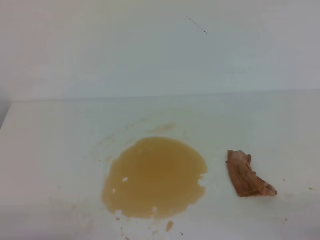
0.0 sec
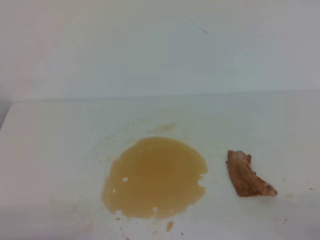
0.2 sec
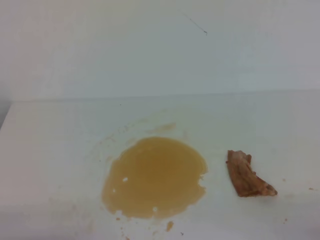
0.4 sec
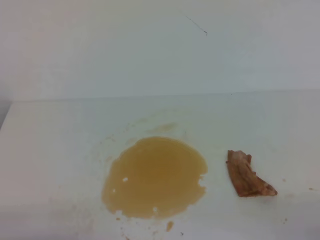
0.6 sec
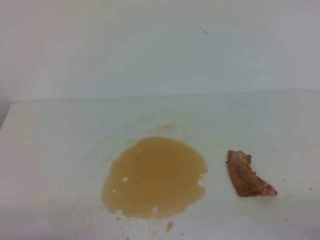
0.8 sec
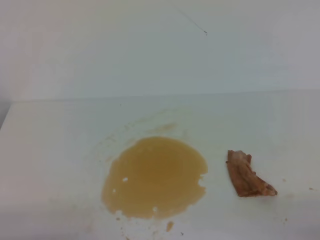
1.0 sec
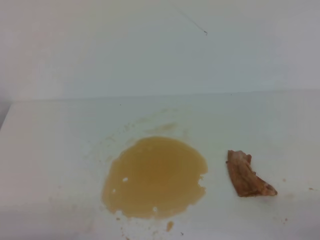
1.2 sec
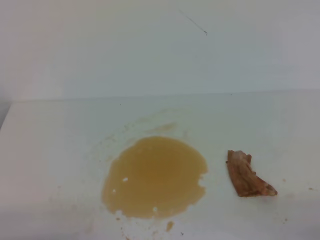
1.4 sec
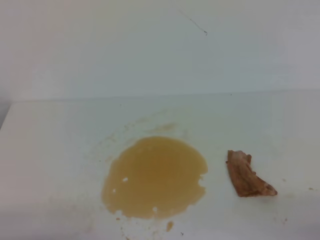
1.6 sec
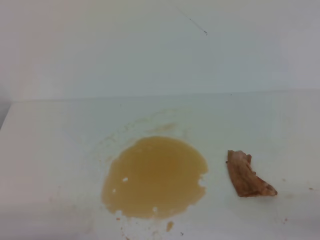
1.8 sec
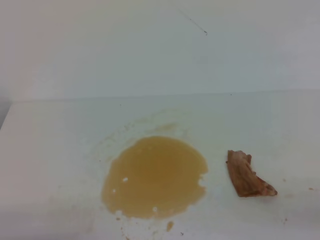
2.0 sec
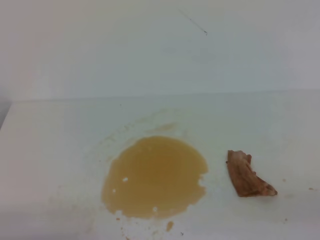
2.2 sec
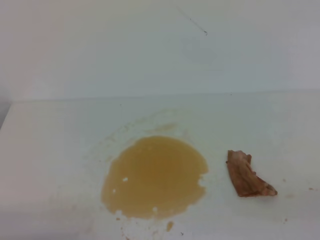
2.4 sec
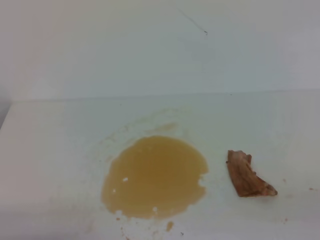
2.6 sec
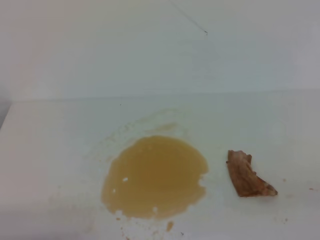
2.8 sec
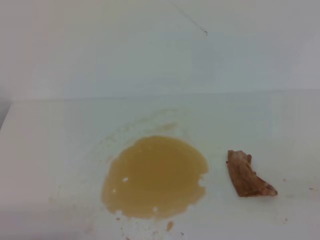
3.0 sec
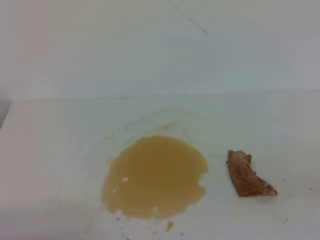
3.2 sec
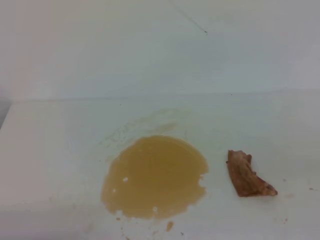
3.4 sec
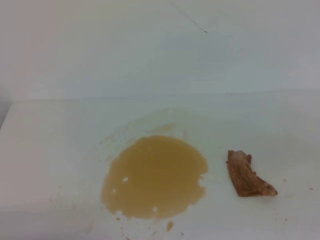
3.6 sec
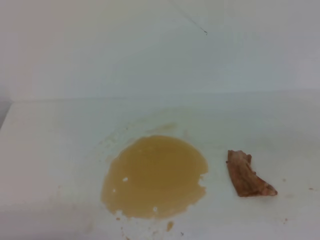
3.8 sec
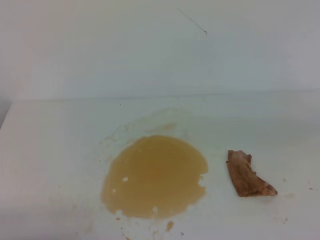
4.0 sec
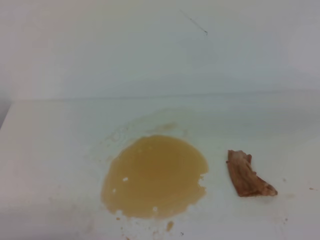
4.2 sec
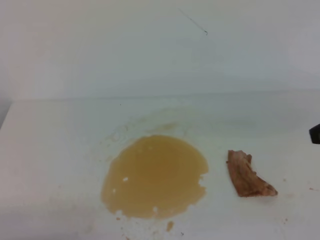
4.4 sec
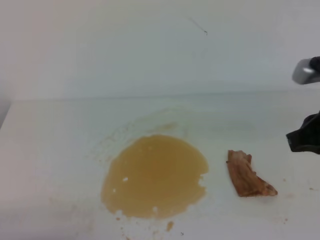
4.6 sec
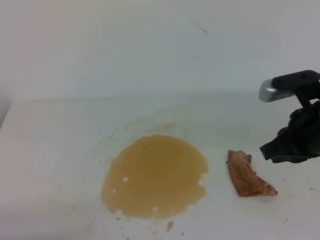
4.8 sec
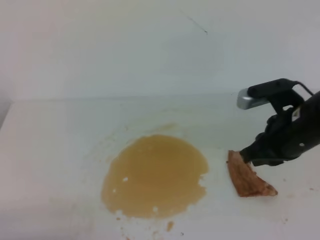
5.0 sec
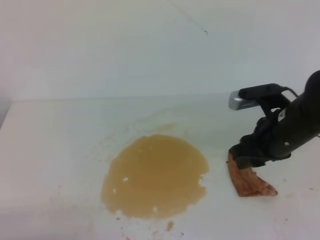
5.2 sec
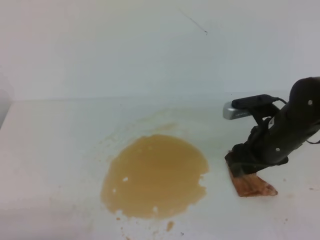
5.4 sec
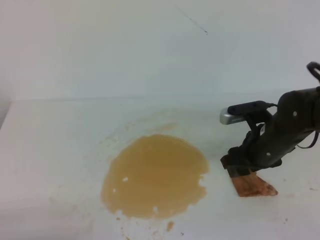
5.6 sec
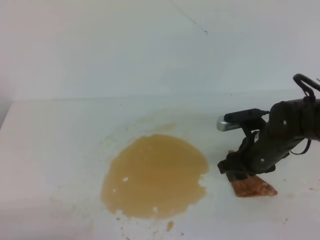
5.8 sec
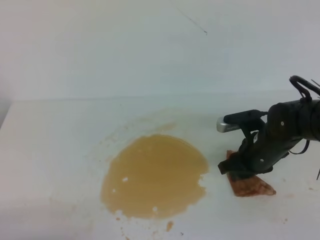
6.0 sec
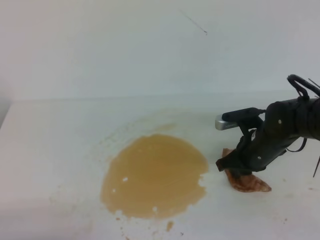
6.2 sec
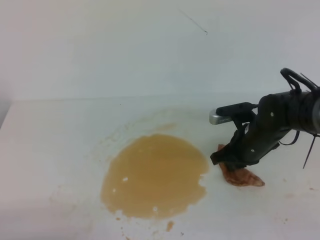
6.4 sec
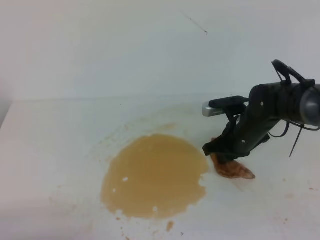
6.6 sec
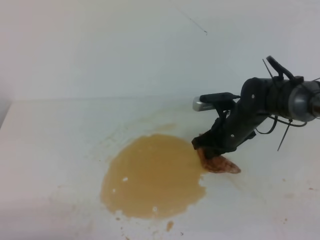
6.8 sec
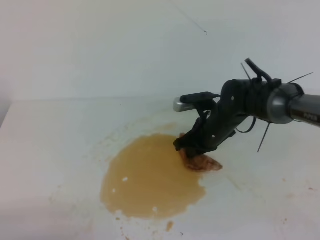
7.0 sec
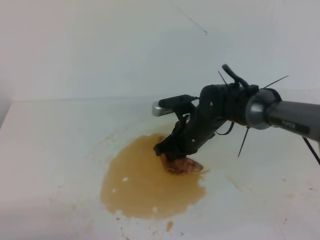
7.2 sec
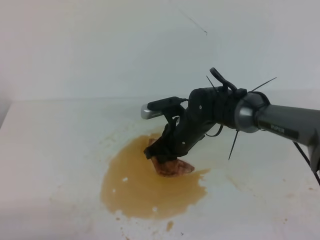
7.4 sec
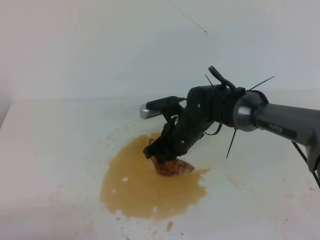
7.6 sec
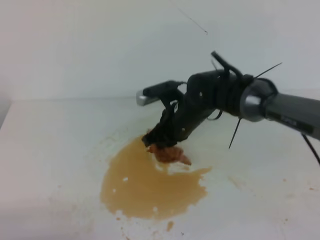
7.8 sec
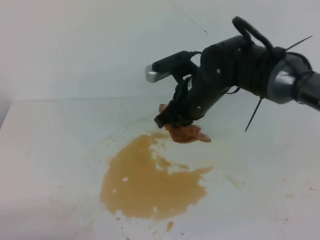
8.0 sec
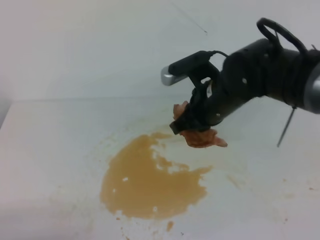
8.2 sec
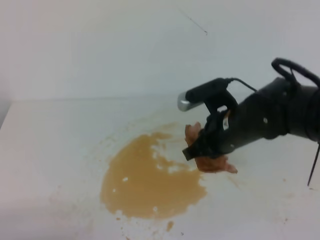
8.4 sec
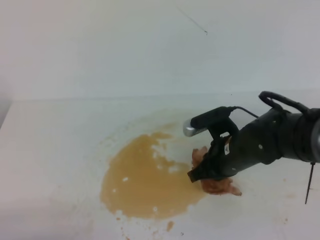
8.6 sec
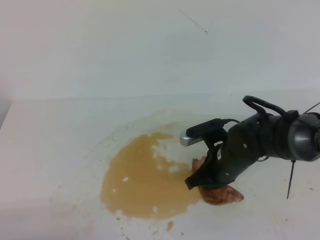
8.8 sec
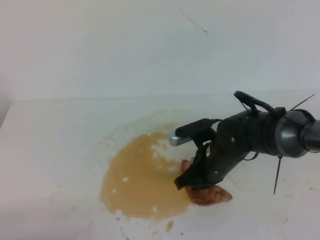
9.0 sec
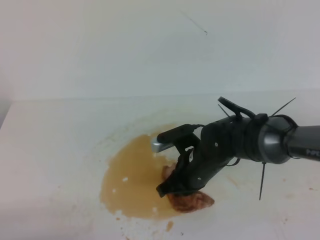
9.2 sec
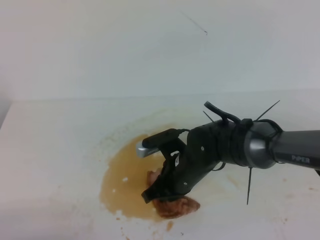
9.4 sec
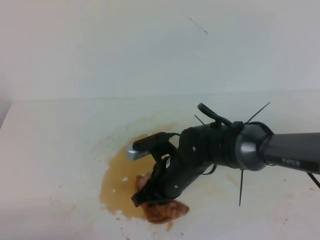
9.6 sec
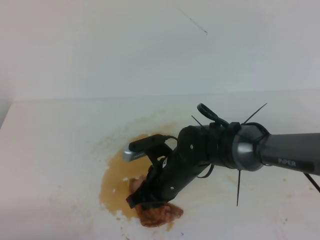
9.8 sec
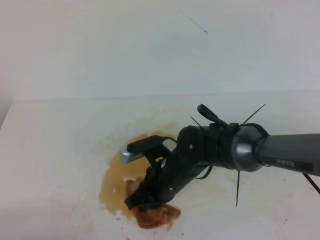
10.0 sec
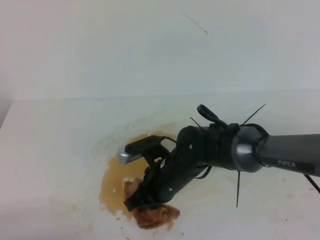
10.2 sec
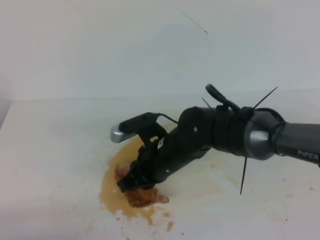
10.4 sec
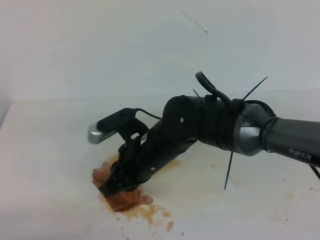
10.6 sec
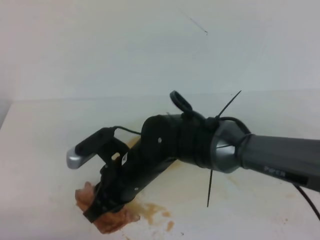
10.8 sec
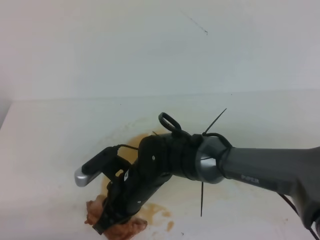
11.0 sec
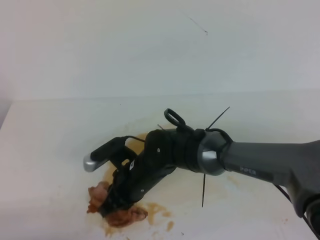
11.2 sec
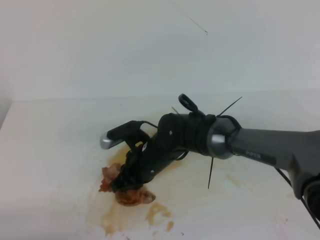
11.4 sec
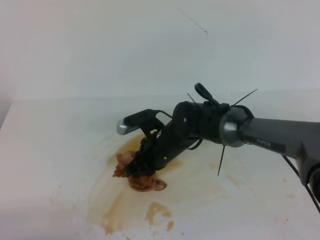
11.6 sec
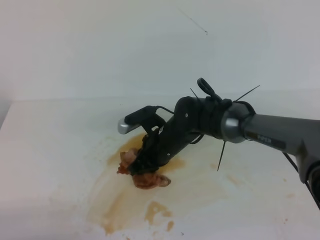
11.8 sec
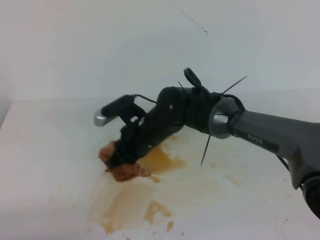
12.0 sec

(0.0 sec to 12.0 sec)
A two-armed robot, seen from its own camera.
0.0 sec - 1.6 sec: Neither gripper changes place.
4.4 sec - 6.0 sec: The right gripper travels downward, forward and to the left by roughly 25 cm, and opens up.
6.0 sec - 7.6 sec: The right gripper shifts about 15 cm to the left, and closes up.
7.6 sec - 9.0 sec: The right gripper moves backward, roughly 10 cm, and reaches about 10 cm upward, then returns.
9.0 sec - 10.4 sec: The right gripper moves to the left and upward, some 10 cm.
10.4 sec - 12.0 sec: The right gripper travels forward by roughly 10 cm.

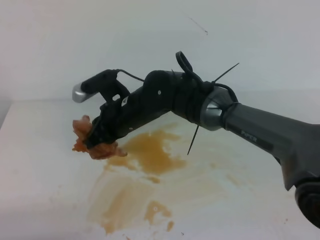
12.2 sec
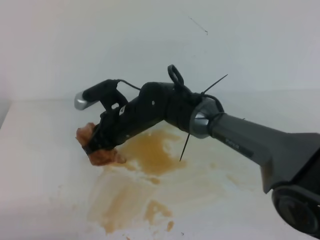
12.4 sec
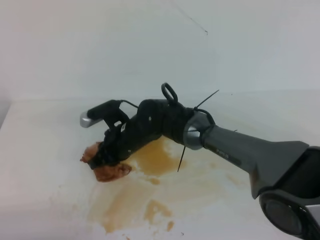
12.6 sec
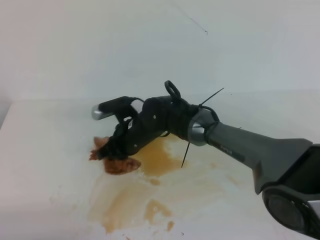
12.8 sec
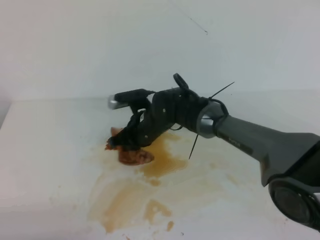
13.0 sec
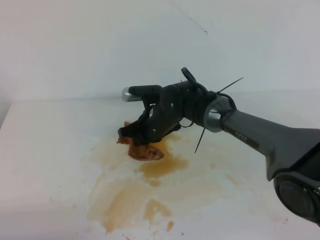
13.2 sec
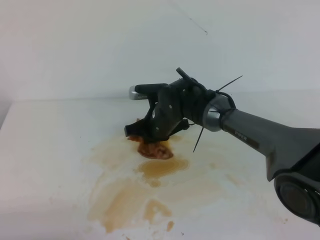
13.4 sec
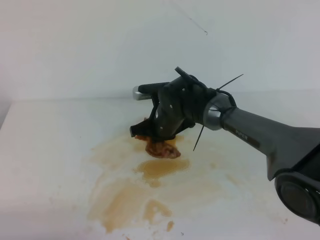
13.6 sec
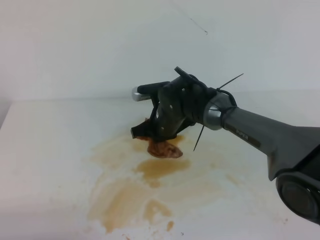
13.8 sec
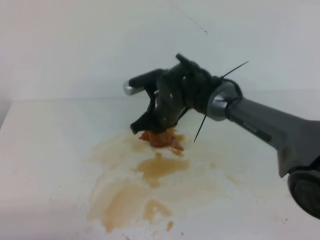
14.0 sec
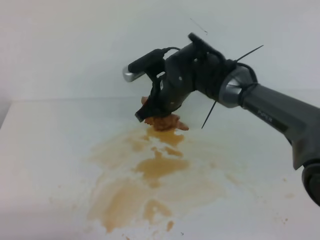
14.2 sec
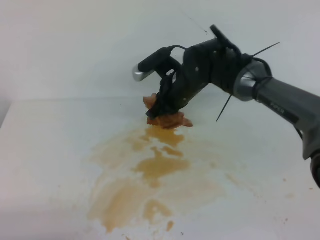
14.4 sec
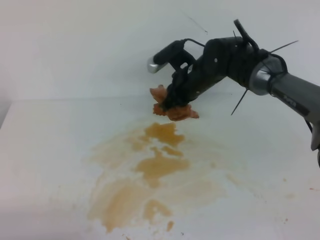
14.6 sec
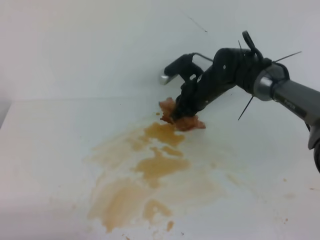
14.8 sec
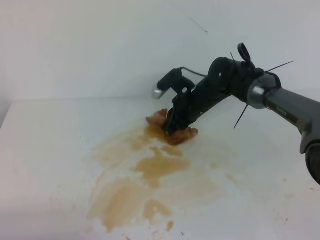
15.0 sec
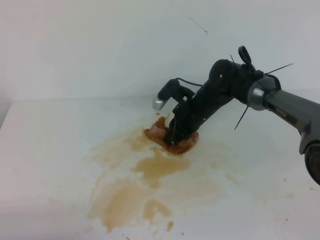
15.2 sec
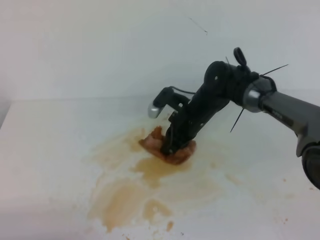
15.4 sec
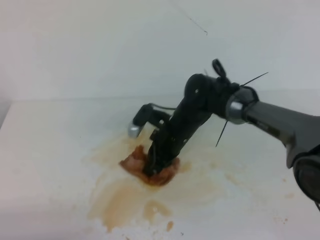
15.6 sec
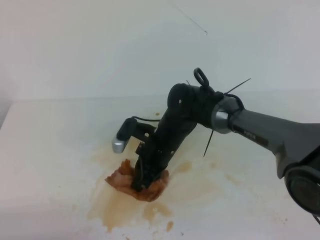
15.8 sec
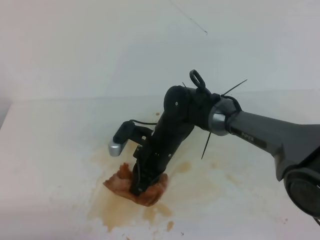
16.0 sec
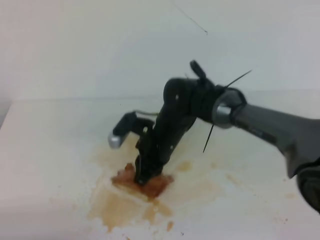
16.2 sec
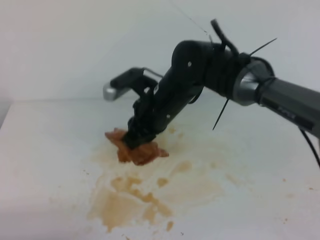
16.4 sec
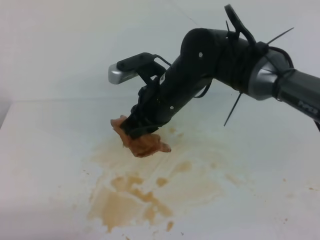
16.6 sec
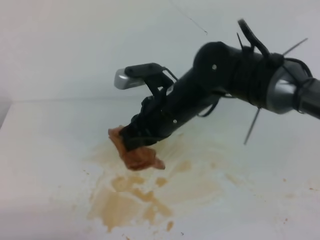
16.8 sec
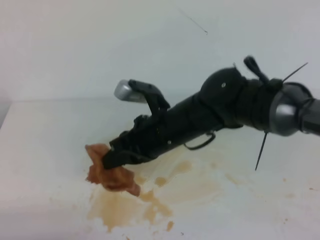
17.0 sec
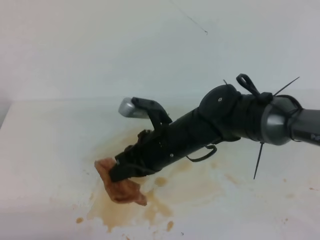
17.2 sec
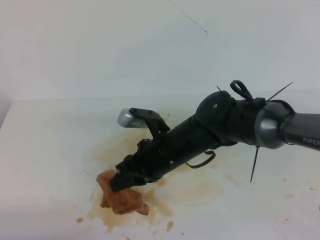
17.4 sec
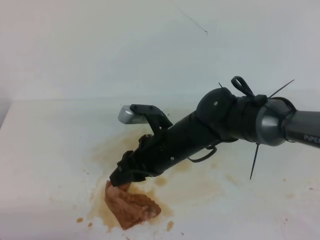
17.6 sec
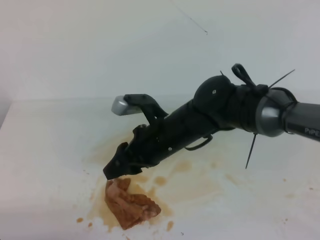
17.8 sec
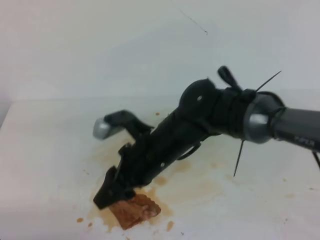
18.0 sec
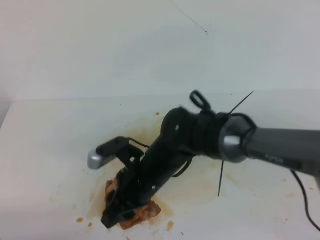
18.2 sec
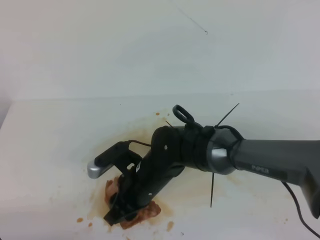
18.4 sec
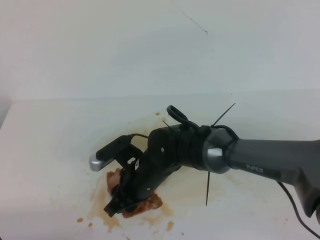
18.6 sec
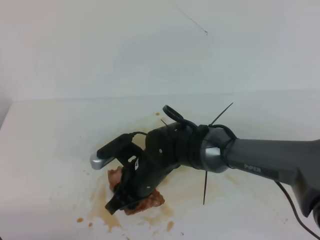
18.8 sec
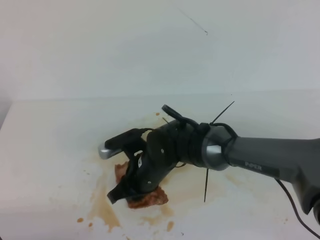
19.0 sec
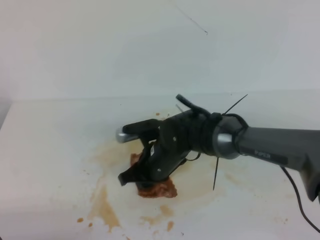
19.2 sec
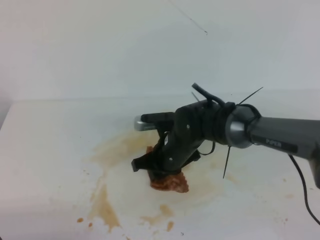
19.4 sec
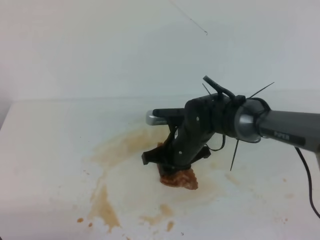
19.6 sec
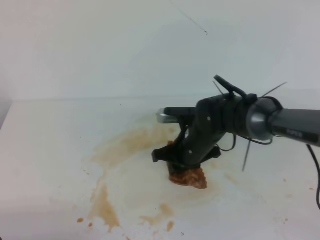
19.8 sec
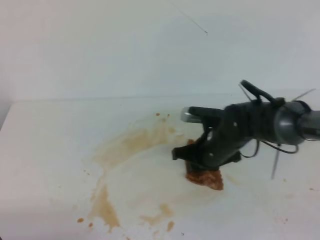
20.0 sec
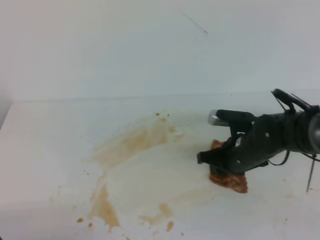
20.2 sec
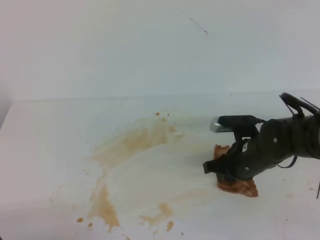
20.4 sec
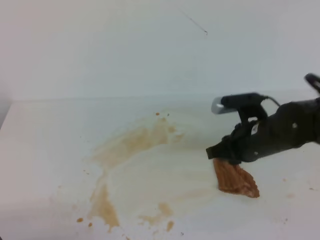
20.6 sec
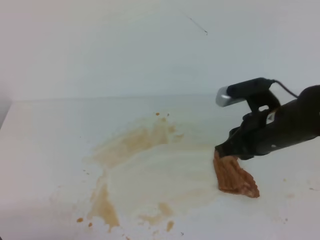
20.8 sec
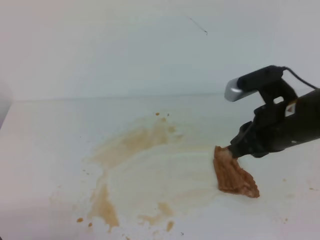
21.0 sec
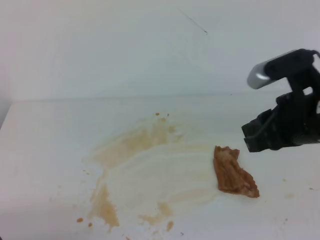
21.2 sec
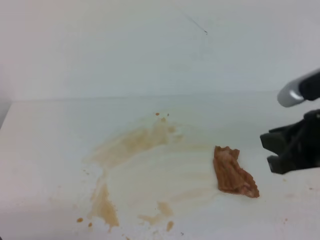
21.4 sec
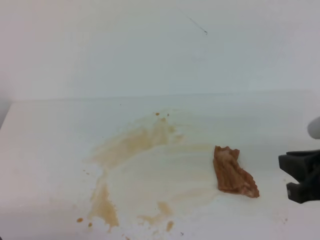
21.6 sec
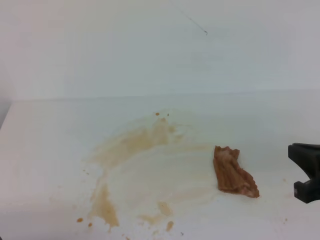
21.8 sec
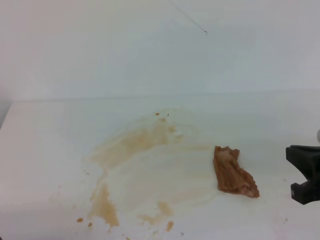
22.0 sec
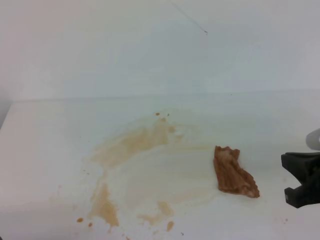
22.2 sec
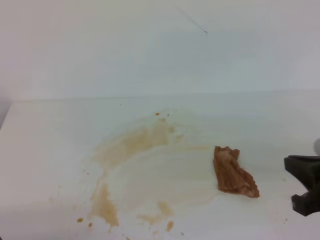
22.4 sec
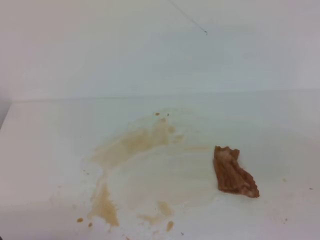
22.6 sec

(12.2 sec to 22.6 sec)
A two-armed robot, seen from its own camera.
12.2 sec - 13.6 sec: The right gripper shifts approximately 10 cm downward, to the right and forward.
13.6 sec - 15.2 sec: The right gripper moves to the right, approximately 5 cm, and travels upward and back again, approximately 10 cm each way.
15.2 sec - 16.6 sec: The right gripper is displaced upward, backward and to the left by approximately 20 cm.
16.6 sec - 18.2 sec: The right gripper heads downward and backward, covering about 10 cm, and opens its fingers.
18.2 sec - 19.6 sec: The right gripper moves forward, to the right and downward, roughly 10 cm, and closes its fingers.
19.6 sec - 21.2 sec: The right gripper heads upward, to the right and backward, covering roughly 25 cm.
21.2 sec - 22.6 sec: The right gripper moves backward and to the right, approximately 15 cm, and closes its fingers.
